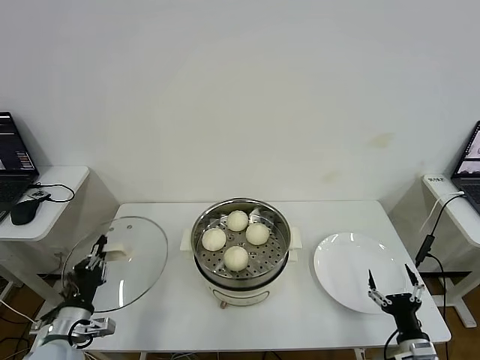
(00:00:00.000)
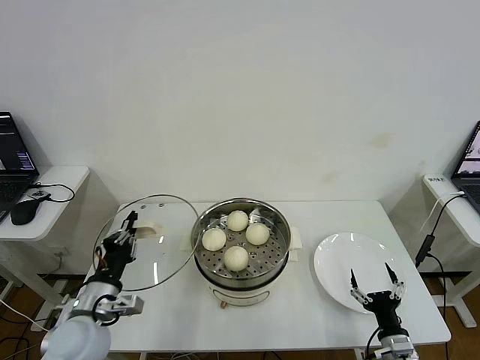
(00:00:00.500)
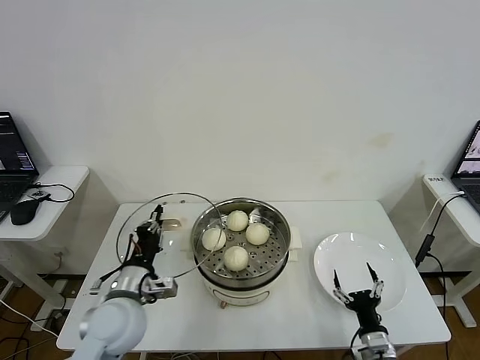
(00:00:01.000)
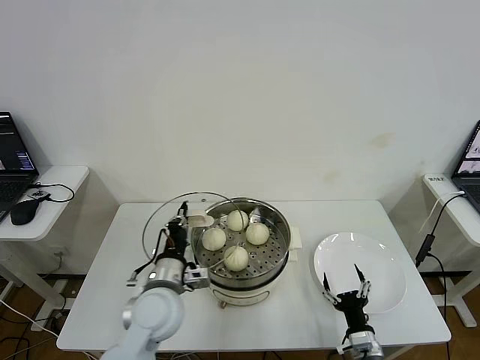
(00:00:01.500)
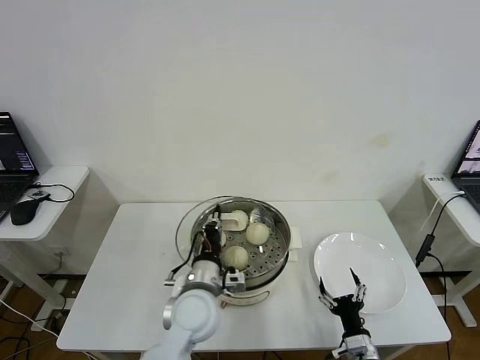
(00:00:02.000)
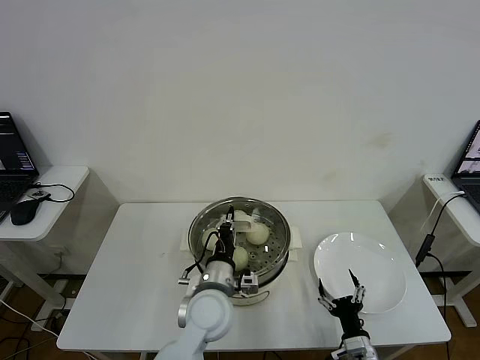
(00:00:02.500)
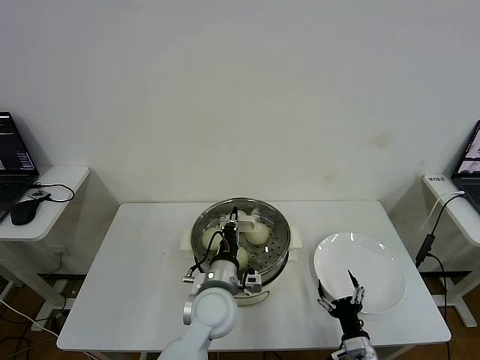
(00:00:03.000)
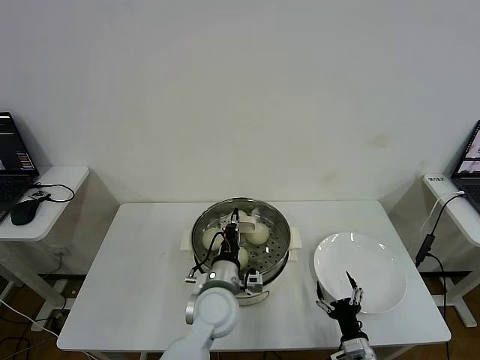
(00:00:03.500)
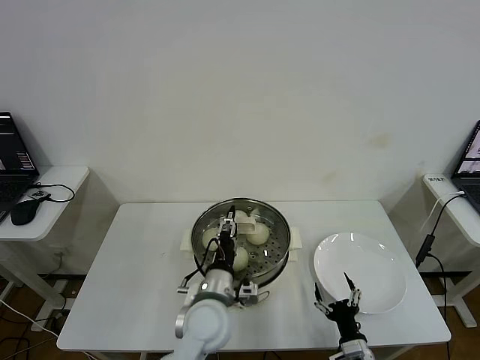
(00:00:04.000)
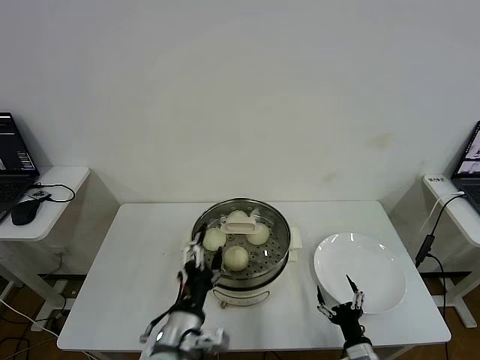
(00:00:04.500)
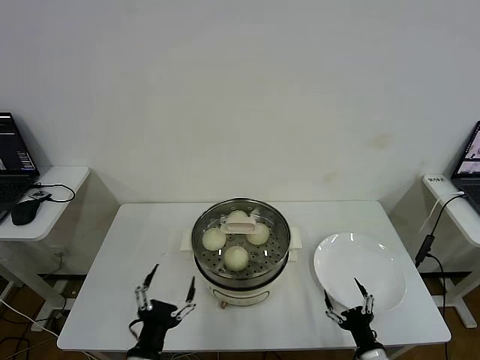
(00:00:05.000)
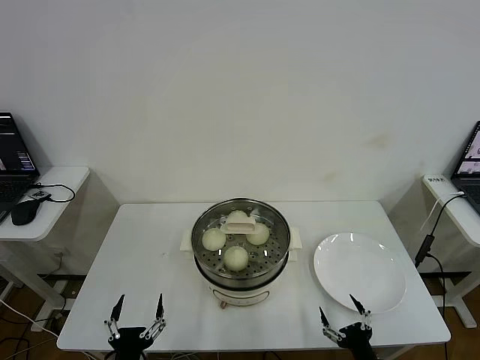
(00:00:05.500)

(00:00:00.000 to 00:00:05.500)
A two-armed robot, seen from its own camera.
Step, 00:00:00.000 - 00:00:04.000: Place the pot lid on the steamer with left gripper.
00:00:00.000 - 00:00:02.000: The right gripper shifts approximately 10 cm to the left, while the left gripper moves to the right, roughly 25 cm.
00:00:02.000 - 00:00:03.500: The left gripper shifts by approximately 5 cm.
00:00:03.500 - 00:00:05.500: The left gripper moves backward and to the left, roughly 30 cm, and opens; the right gripper heads backward, covering some 5 cm.
